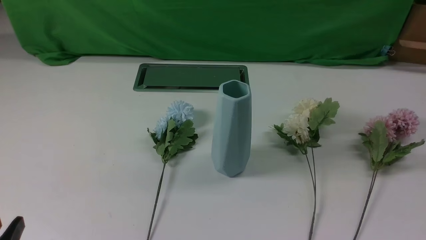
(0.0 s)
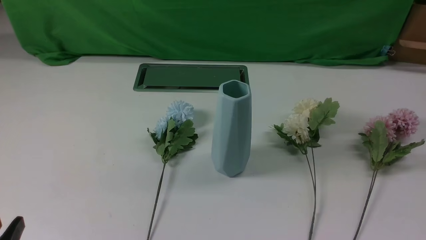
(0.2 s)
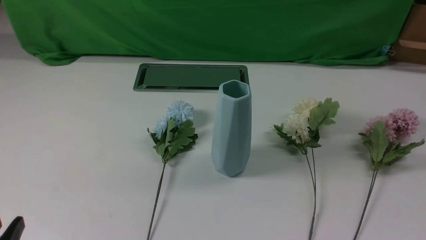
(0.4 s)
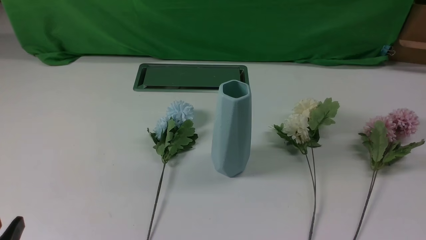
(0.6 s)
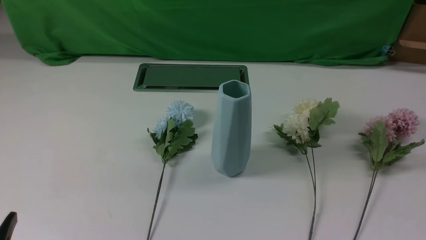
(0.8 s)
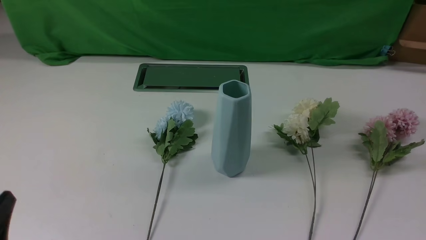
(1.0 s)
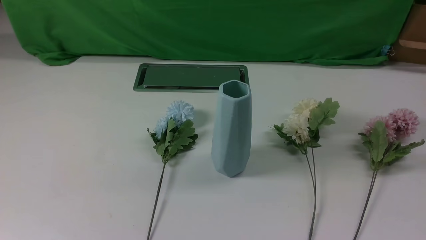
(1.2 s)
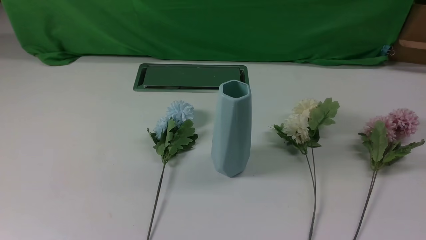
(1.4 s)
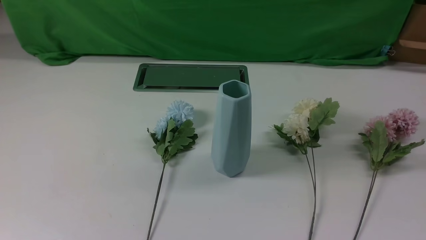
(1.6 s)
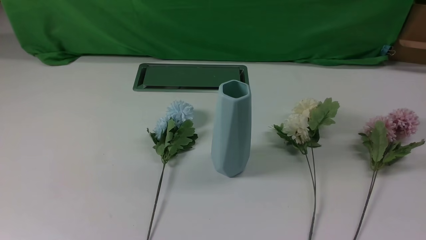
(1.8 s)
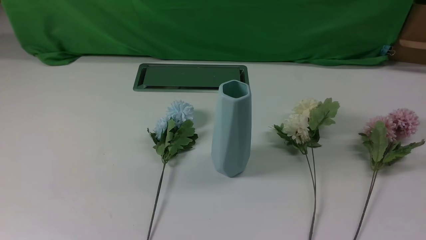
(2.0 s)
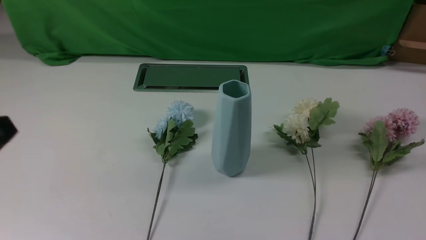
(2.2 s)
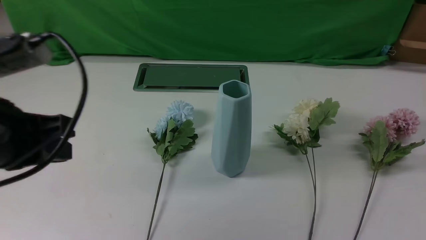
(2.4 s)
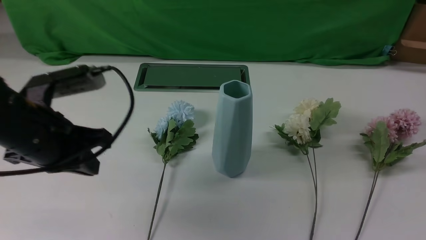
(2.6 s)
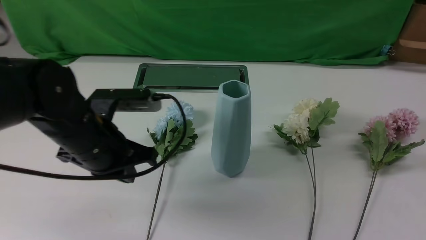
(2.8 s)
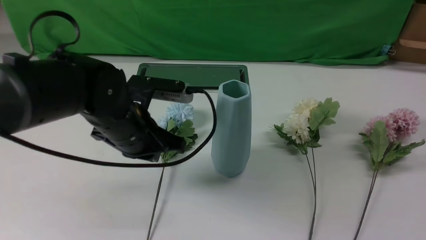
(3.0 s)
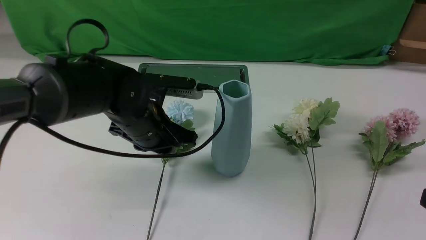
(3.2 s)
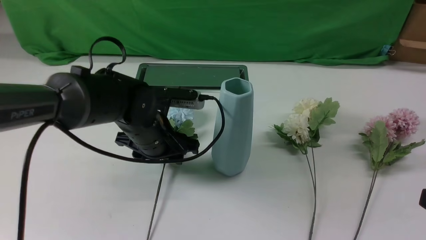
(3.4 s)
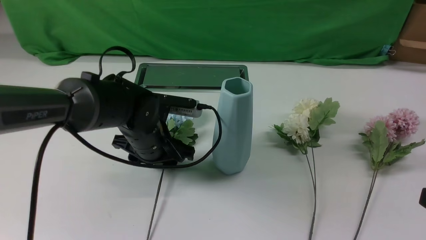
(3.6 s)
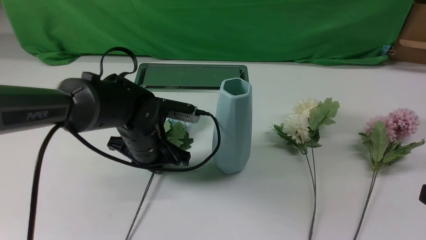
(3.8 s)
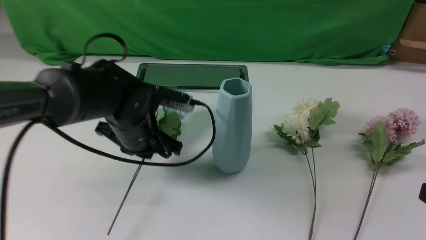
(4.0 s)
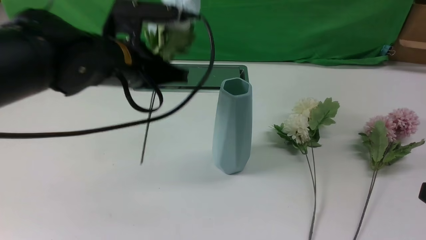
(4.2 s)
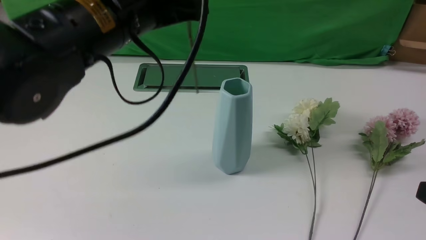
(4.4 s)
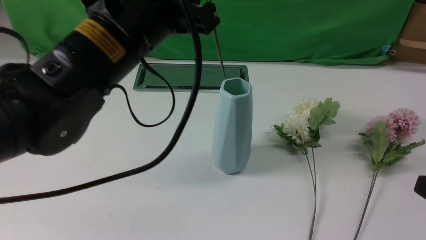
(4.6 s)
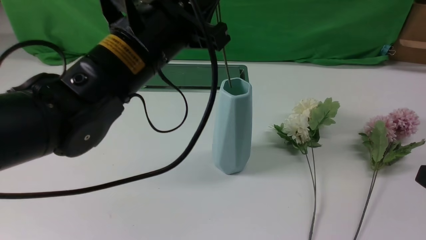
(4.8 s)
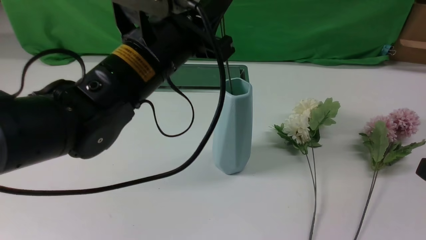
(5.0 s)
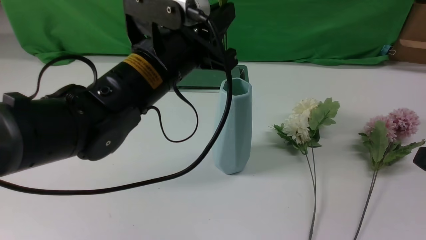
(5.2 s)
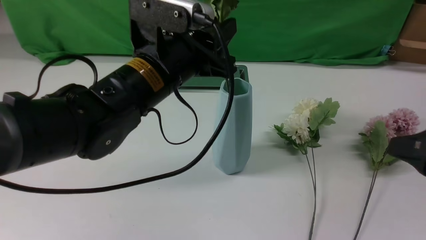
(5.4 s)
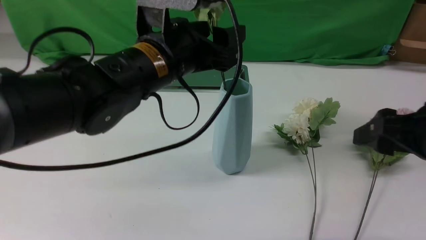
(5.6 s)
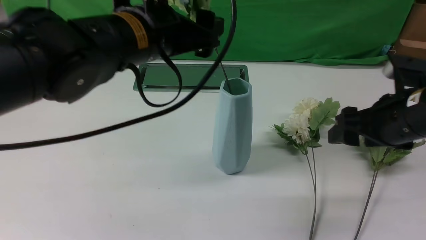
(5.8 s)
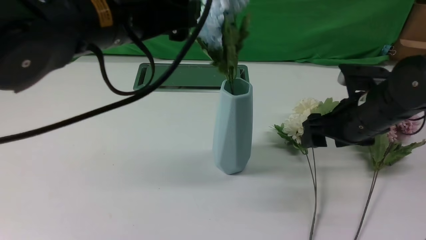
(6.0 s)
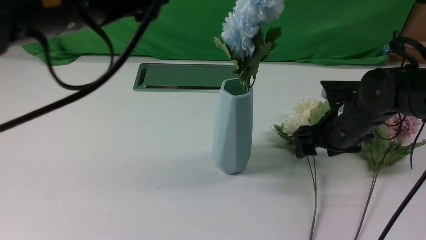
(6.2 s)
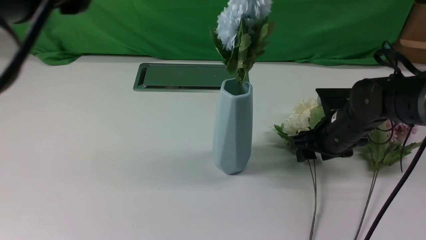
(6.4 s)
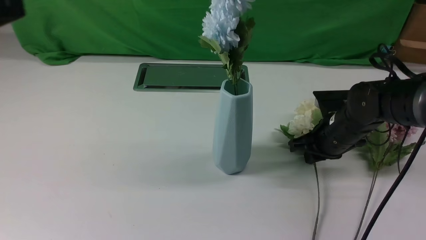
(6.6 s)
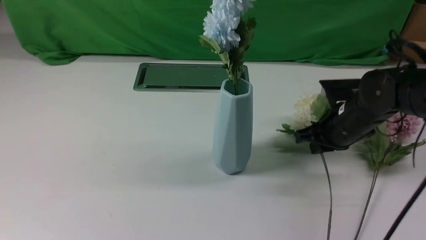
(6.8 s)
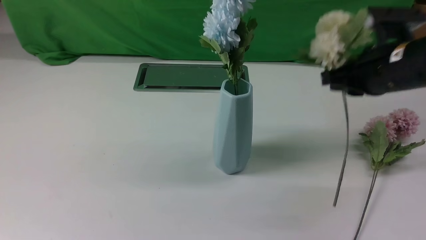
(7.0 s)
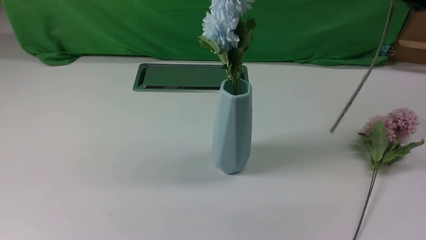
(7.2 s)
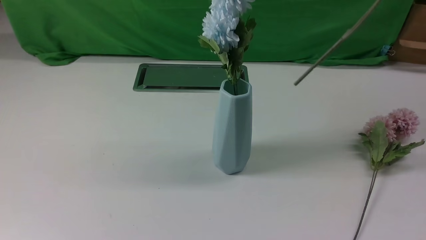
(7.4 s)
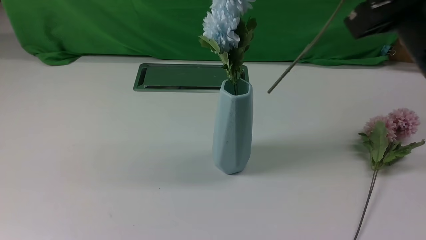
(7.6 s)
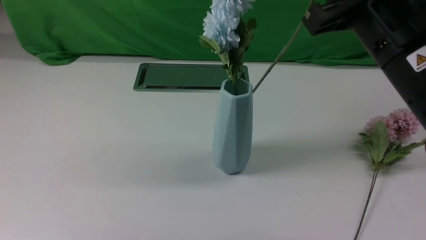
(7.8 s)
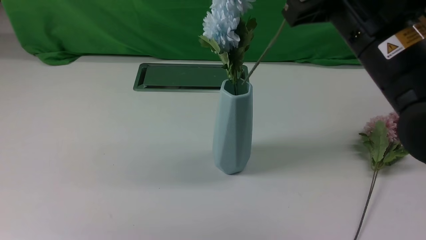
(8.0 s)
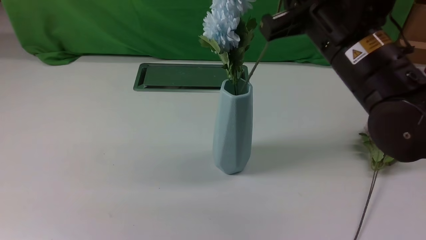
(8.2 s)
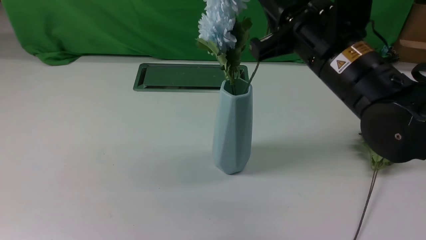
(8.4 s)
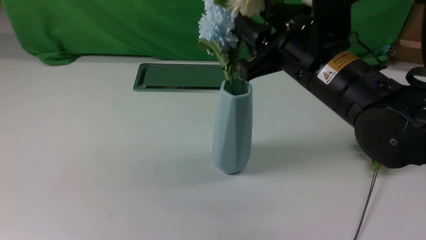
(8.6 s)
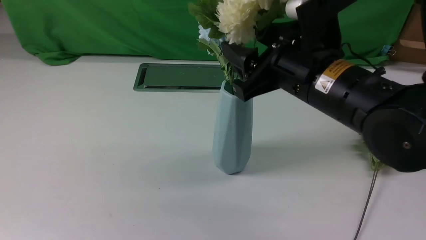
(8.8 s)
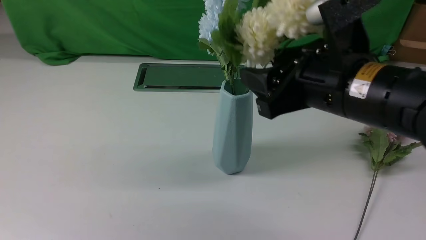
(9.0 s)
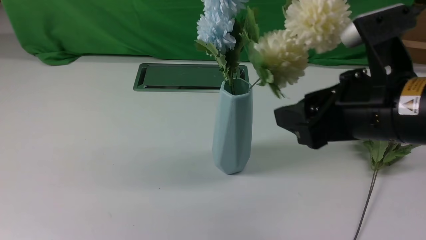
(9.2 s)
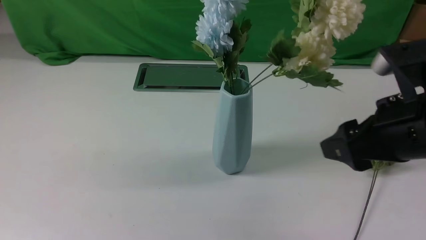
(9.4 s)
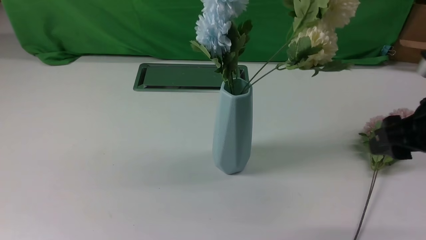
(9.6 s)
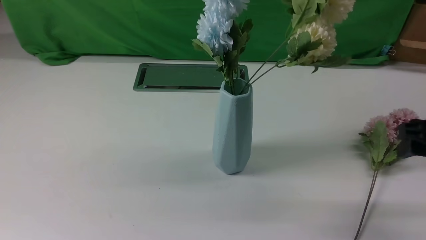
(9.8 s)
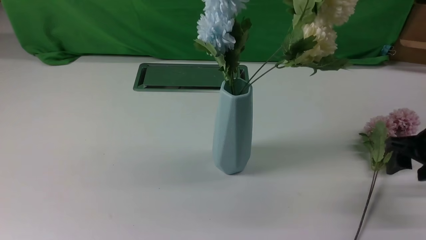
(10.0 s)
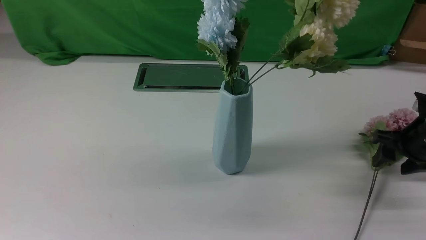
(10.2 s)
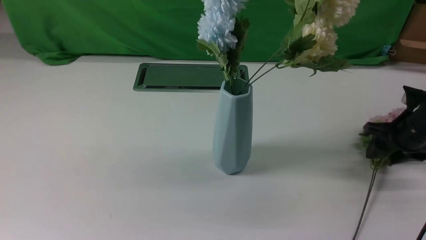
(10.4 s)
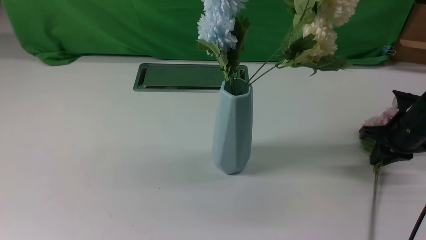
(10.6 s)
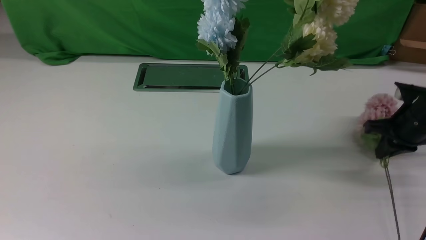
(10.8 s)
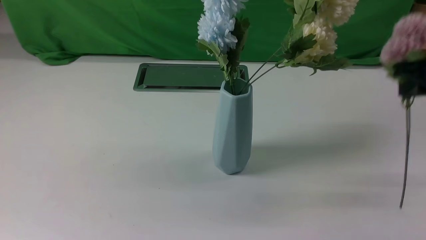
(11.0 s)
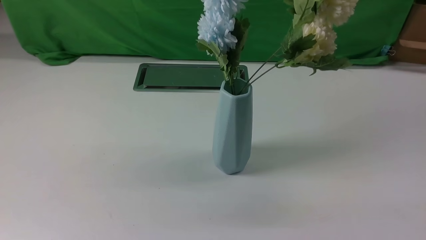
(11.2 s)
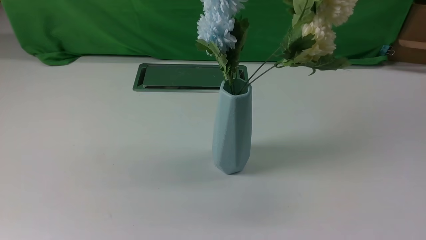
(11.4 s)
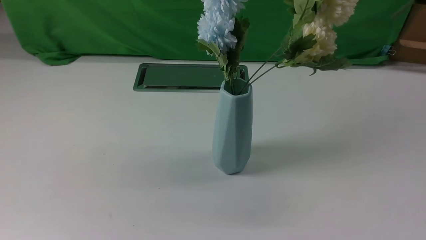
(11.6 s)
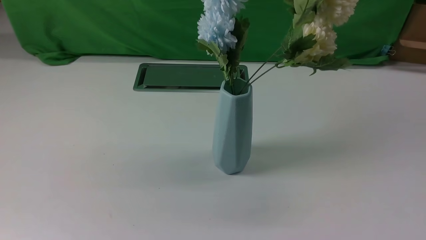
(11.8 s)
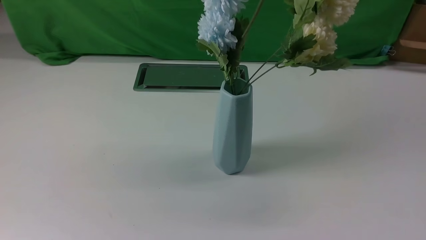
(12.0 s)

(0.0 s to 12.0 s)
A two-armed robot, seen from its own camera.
Task of the whole recording: insert the flowers into the vase on the white table.
Step, 0.0 s - 3.8 s: use the left arm to grab a bunch of fresh flowers.
Step, 4.0 s - 5.6 s: use the left arm to insert the flowers into the vase.
Step, 5.8 s - 6.6 s: use the right arm to grab a bunch of fresh flowers.
Step, 6.8 s - 9.0 s: use the right arm to insert the flowers into the vase.
Step, 9.2 s - 10.6 s: use the right arm to grab a bunch of fresh flowers.
1.6 s - 3.0 s: The right gripper travels upward by roughly 10 cm, and closes, while the left gripper heads forward and to the right, covering some 30 cm.
3.0 s - 4.4 s: The left gripper travels upward by roughly 15 cm, and opens, then closes again.
4.4 s - 6.0 s: The right gripper moves forward, about 20 cm, and opens up. Meanwhile the left gripper opens up.
6.0 s - 7.6 s: The right gripper heads upward and backward, covering approximately 20 cm, and closes its fingers; the left gripper is displaced backward and to the left by approximately 20 cm, and closes.
7.6 s - 9.0 s: The right gripper shifts some 5 cm downward, and opens up.
9.0 s - 10.4 s: The right gripper is displaced to the right, downward and forward by some 30 cm.
10.4 s - 12.0 s: The right gripper travels upward, to the left and backward by some 40 cm, and closes.

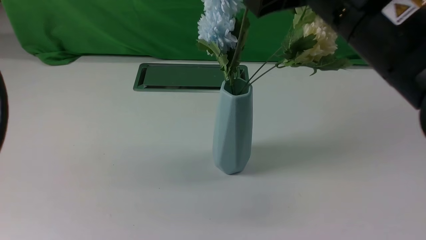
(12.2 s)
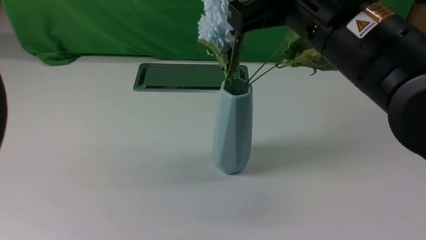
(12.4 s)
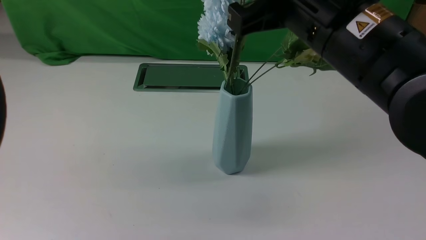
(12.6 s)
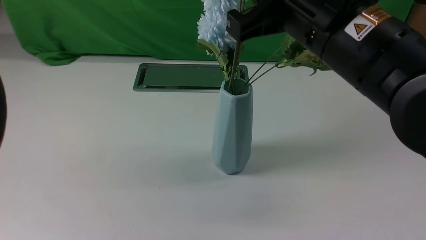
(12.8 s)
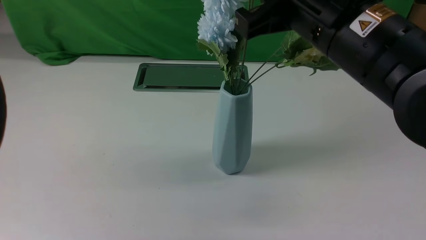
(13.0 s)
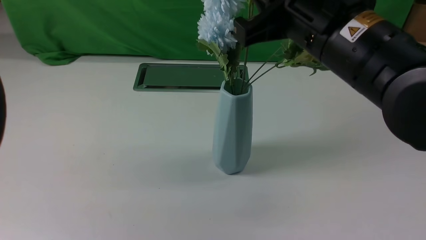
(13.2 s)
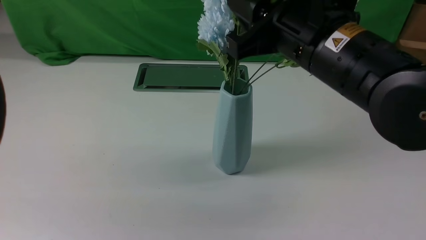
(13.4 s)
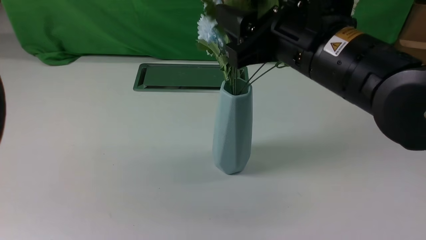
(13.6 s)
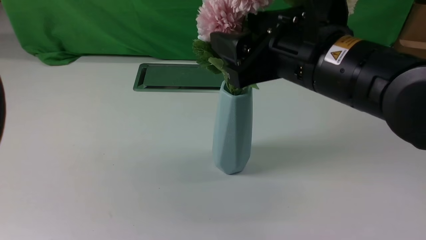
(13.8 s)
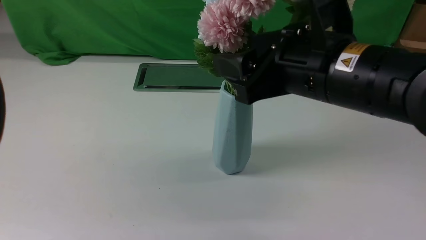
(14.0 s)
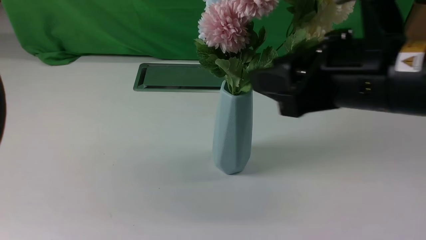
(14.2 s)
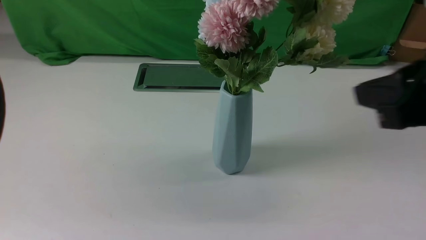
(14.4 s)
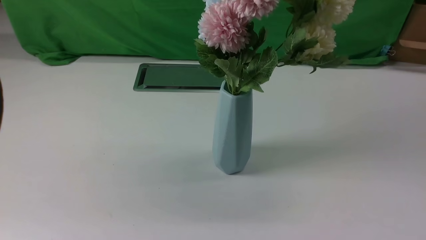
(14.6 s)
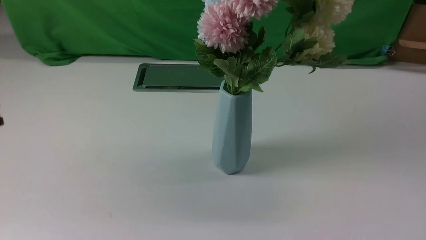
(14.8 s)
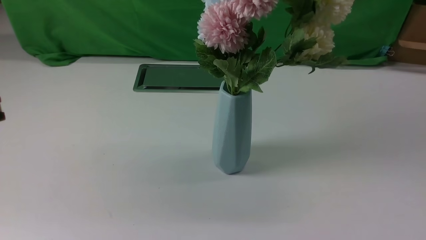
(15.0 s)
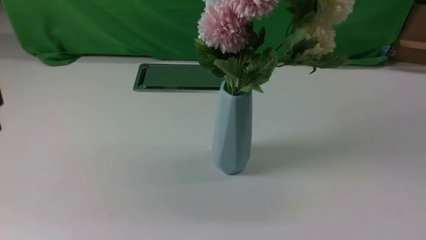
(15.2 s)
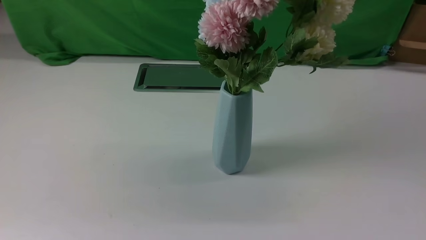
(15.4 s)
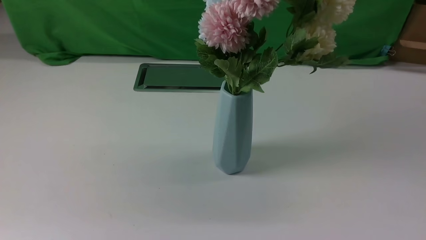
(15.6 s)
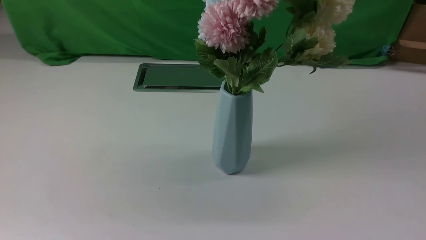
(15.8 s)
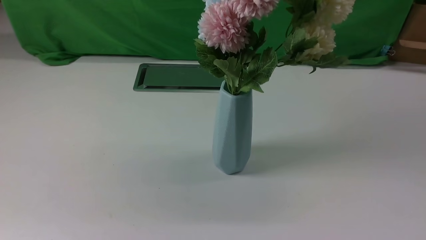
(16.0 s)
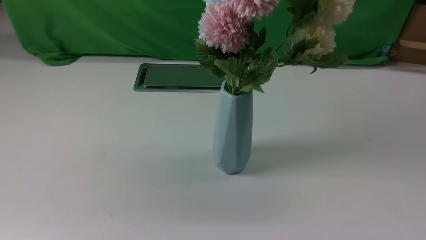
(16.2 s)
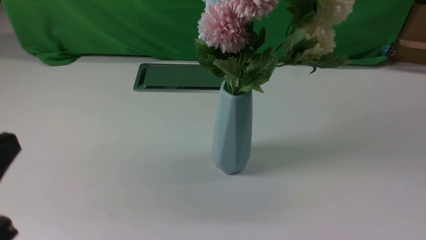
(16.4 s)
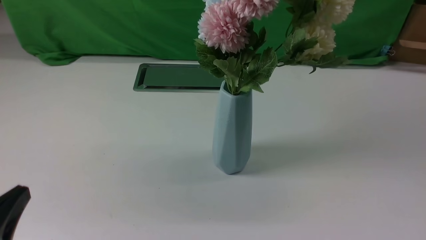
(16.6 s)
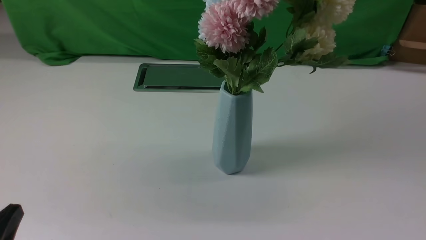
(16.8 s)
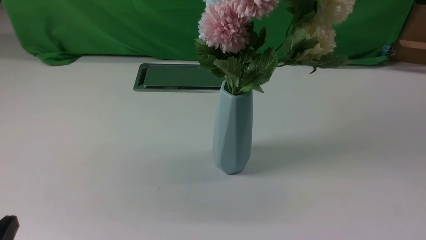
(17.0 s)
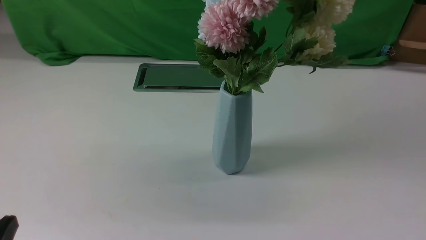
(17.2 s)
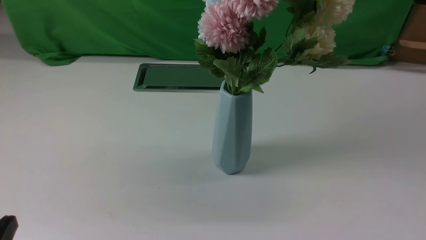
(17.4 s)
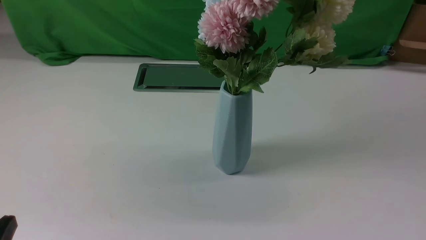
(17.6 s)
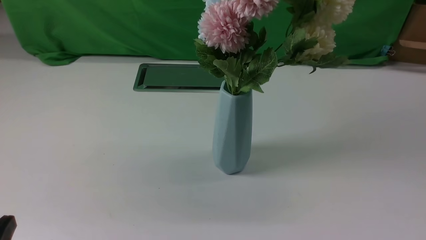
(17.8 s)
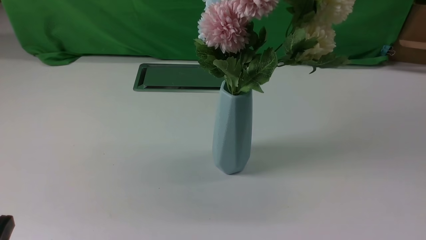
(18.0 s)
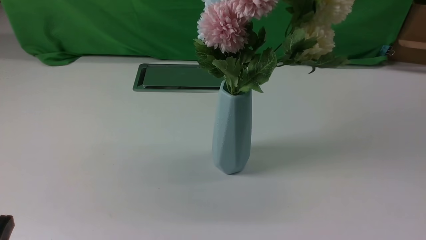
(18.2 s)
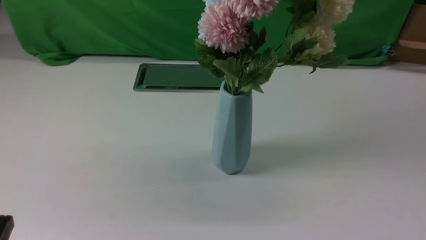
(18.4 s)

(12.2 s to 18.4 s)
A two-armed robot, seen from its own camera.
Task of the whole recording: insert the flowers into the vase on the white table.
Step, 12.2 s - 14.0 s: use the right arm to insert the flowers into the vase.
12.2 s - 13.8 s: The right gripper heads downward, covering some 5 cm, and opens.
13.8 s - 15.4 s: The right gripper travels backward and to the right by about 30 cm, and closes.
15.4 s - 16.8 s: The left gripper is displaced downward by some 15 cm.
